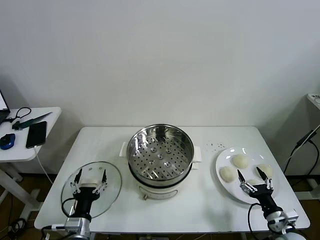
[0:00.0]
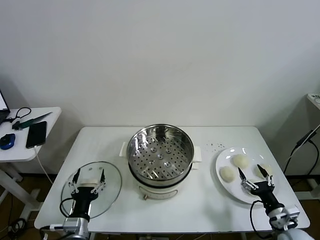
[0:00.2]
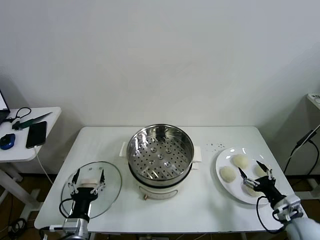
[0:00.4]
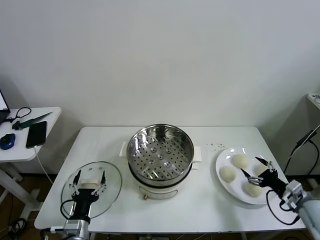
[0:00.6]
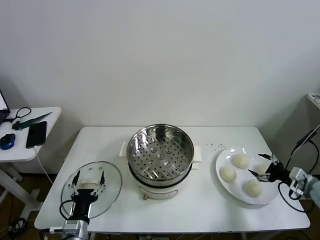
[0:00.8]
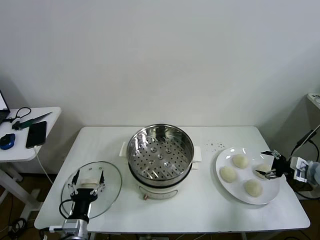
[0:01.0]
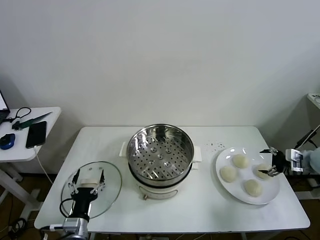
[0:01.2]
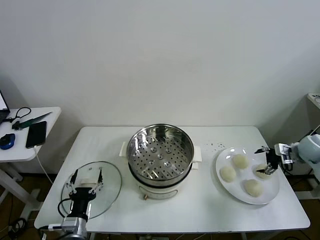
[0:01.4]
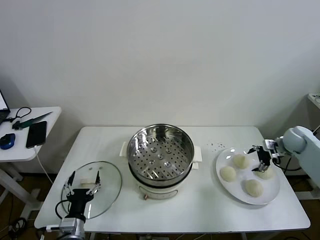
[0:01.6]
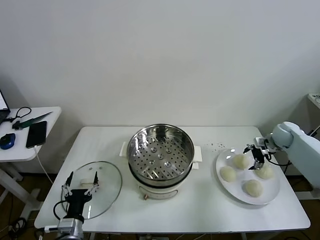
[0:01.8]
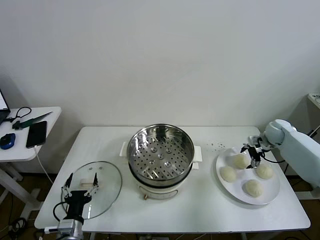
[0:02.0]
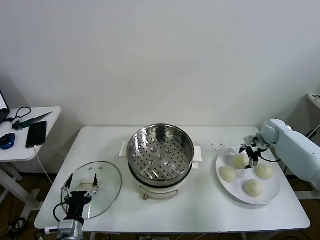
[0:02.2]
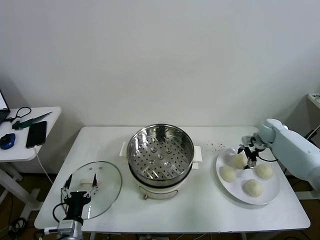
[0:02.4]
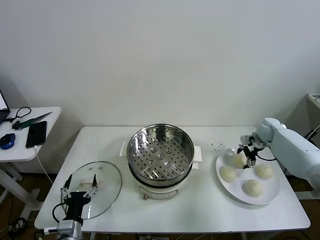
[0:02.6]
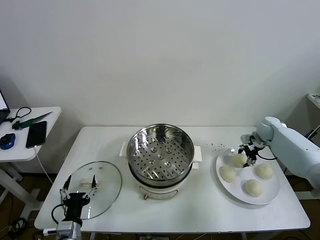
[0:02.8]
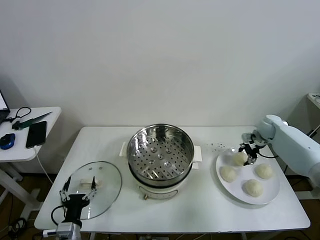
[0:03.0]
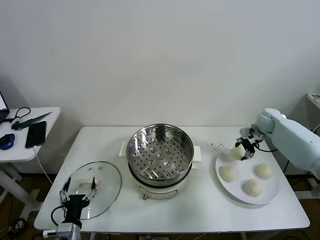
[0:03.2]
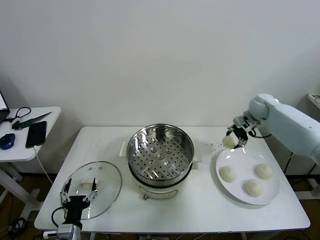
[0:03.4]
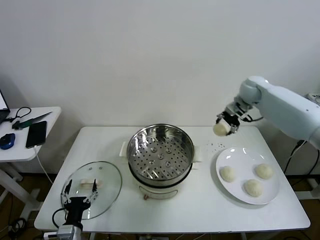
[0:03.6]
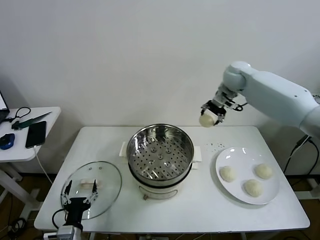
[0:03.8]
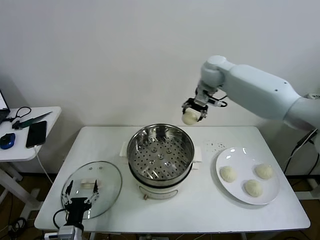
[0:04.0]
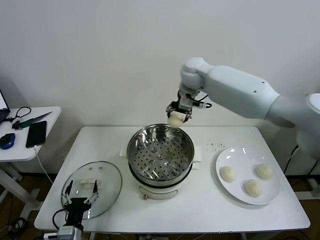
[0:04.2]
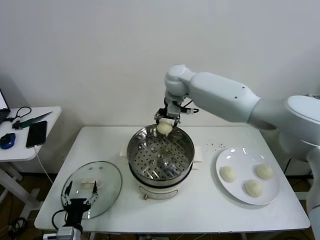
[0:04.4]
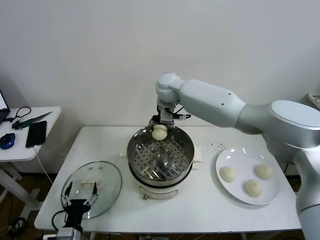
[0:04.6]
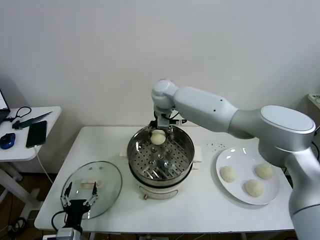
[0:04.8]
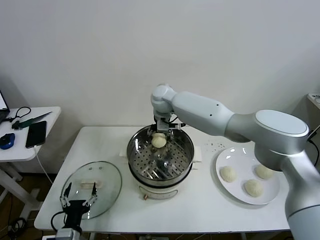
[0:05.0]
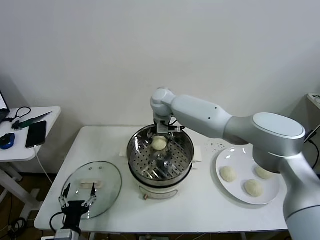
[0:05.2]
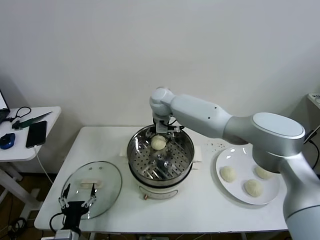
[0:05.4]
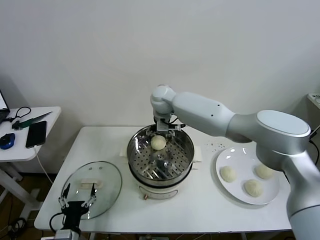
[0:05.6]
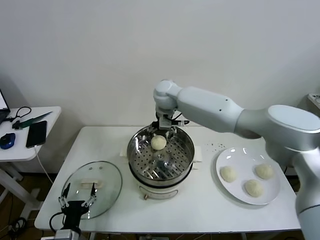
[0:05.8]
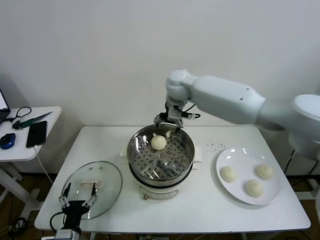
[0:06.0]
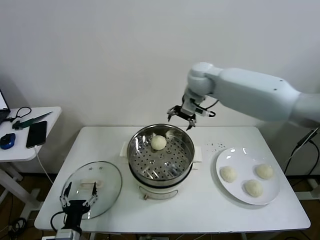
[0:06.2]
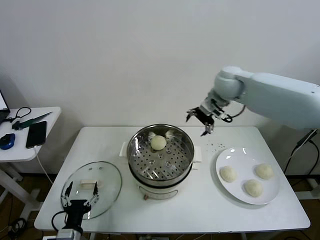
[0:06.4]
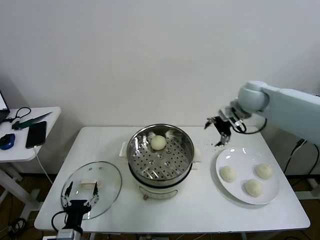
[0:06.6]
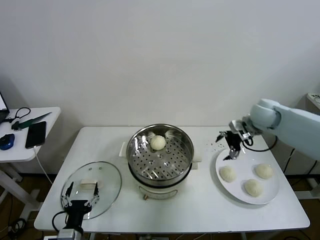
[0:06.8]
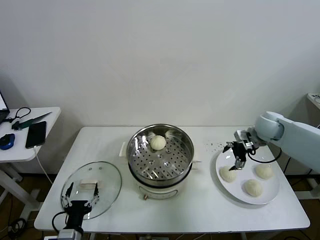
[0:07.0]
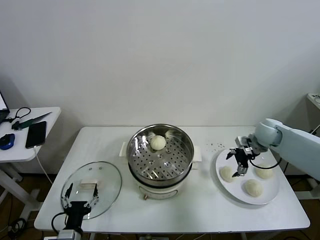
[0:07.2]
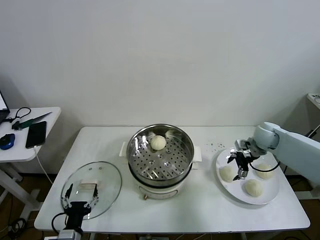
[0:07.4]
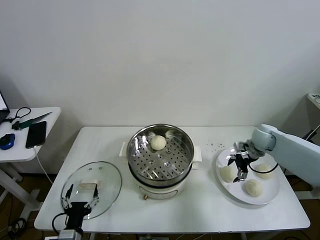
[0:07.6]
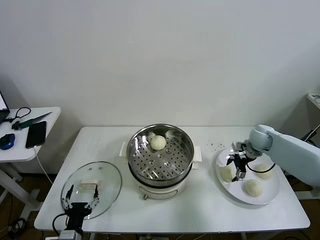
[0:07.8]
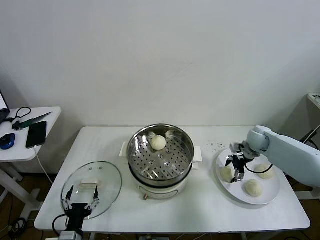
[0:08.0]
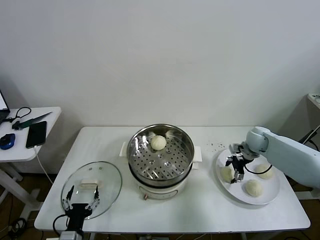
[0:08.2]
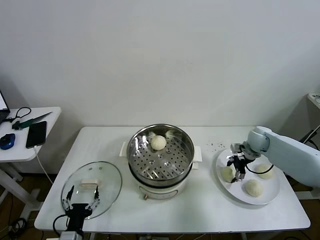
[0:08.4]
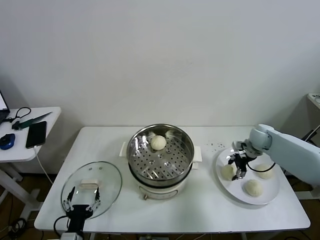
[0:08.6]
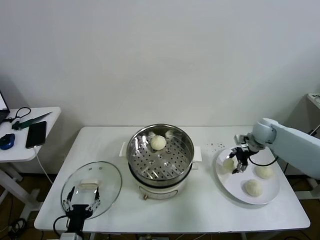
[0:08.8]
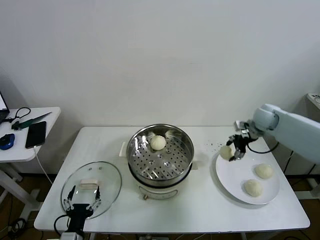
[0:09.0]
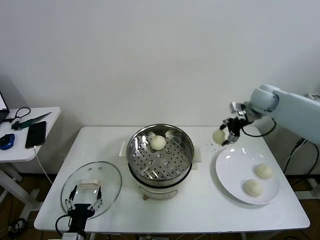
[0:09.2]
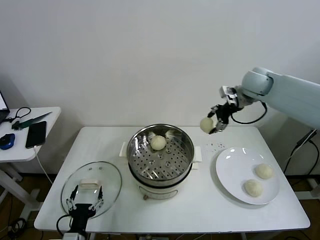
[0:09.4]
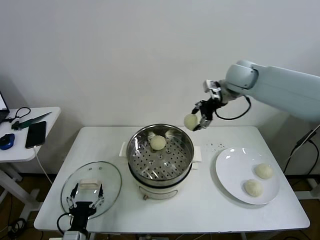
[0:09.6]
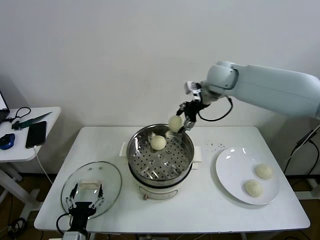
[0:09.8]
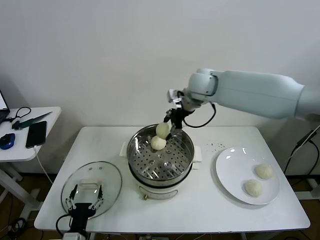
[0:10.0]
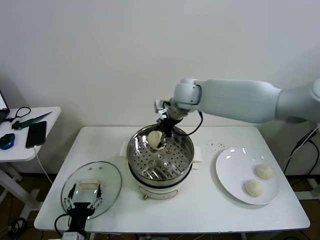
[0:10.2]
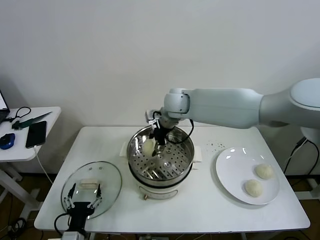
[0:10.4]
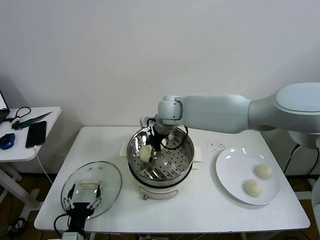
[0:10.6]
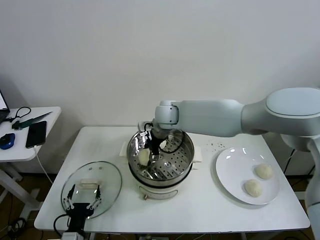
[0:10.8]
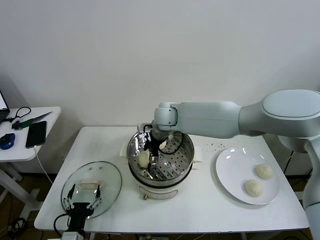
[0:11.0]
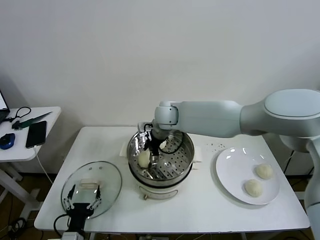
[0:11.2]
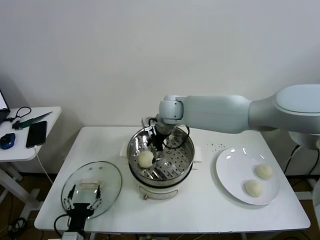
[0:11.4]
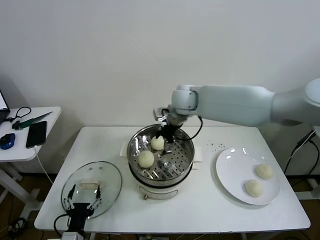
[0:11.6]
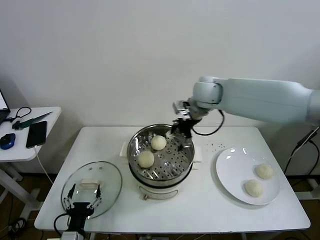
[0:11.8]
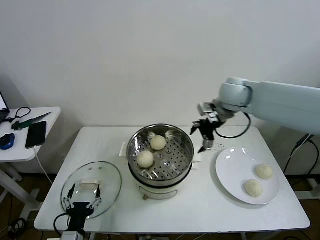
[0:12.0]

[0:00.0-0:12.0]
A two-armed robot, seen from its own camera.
Task of the whole recording: take steamed baozi put them in steamer then cover it.
Step, 0:00.0 to 0:02.8: Grasp the baozi in the plate with right gripper.
Step, 0:03.0 to 0:05.4: Place the baozi on the steamer with right gripper.
Step, 0:05.6 to 0:08.4: Grasp the baozi in the plate with right gripper.
Step, 0:08.6 to 0:11.2: Place the baozi on the steamer with right gripper.
0:01.6 to 0:03.0: The right gripper heads forward and to the left, covering about 10 cm, and closes its fingers.
0:03.0 to 0:04.4: The right gripper travels to the left and upward by some 40 cm.
0:04.4 to 0:06.0: The right gripper moves to the right, about 5 cm, travels downward and back again, about 5 cm each way, and opens.
0:06.0 to 0:07.6: The right gripper heads to the right and downward, covering roughly 35 cm.
0:07.6 to 0:09.0: The right gripper moves upward, about 10 cm, and closes.
0:09.0 to 0:10.4: The right gripper heads to the left, covering approximately 35 cm.
0:10.4 to 0:12.0: The right gripper travels to the right by approximately 20 cm, and opens its fingers.

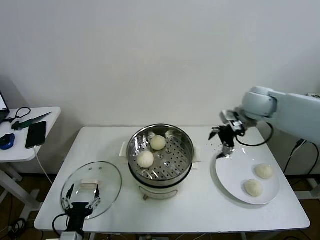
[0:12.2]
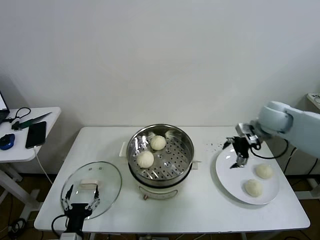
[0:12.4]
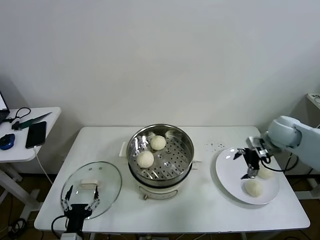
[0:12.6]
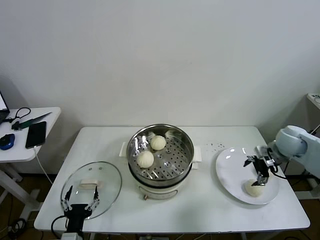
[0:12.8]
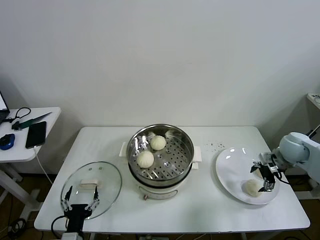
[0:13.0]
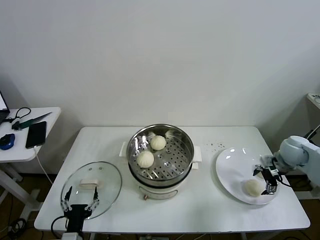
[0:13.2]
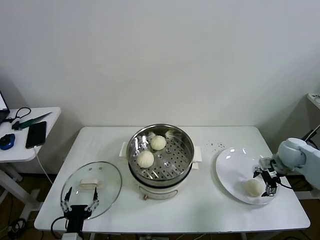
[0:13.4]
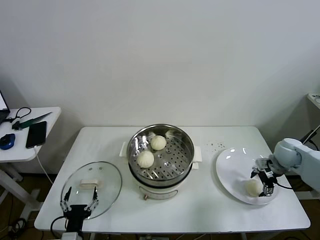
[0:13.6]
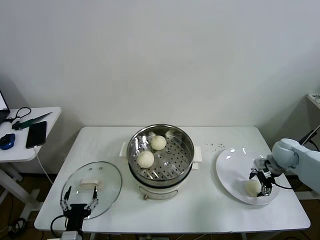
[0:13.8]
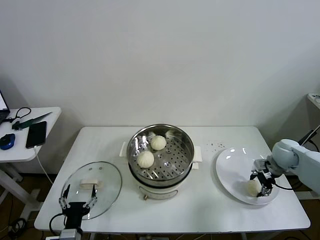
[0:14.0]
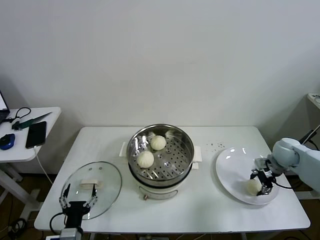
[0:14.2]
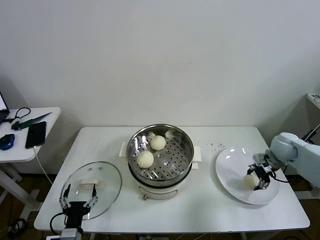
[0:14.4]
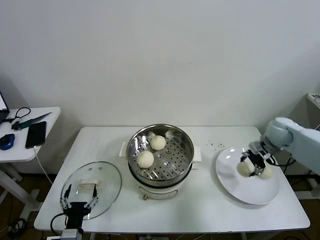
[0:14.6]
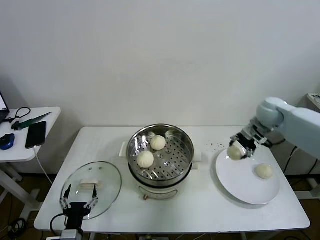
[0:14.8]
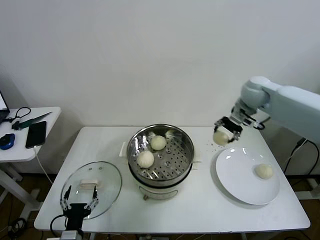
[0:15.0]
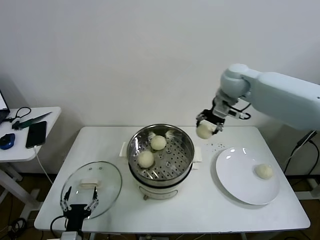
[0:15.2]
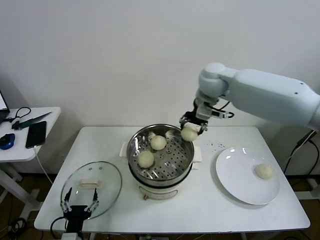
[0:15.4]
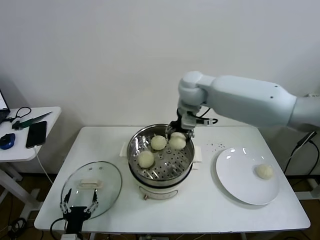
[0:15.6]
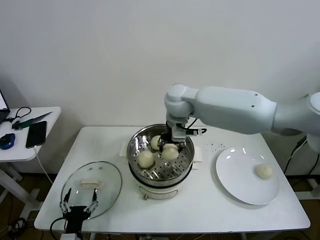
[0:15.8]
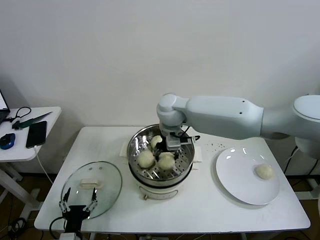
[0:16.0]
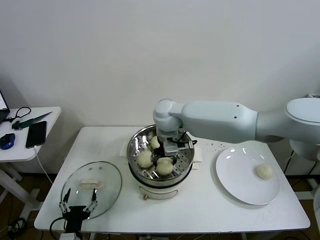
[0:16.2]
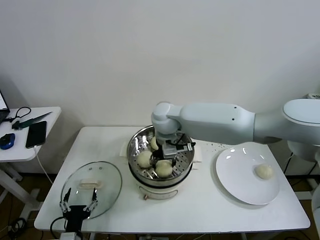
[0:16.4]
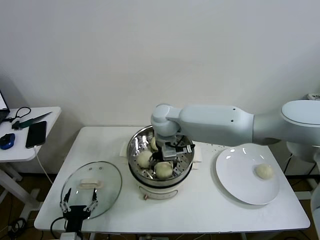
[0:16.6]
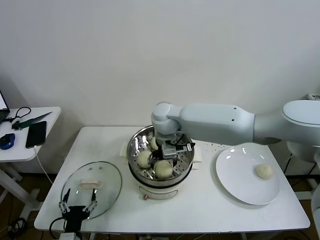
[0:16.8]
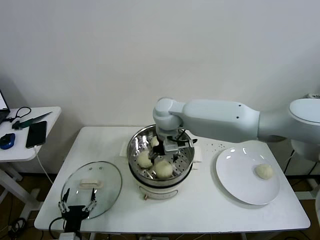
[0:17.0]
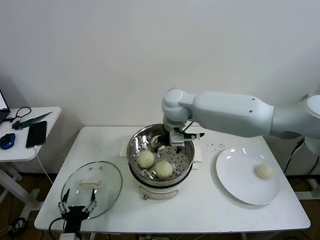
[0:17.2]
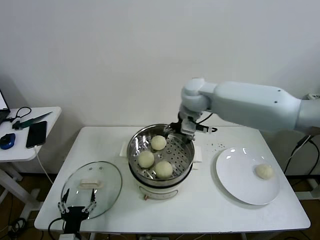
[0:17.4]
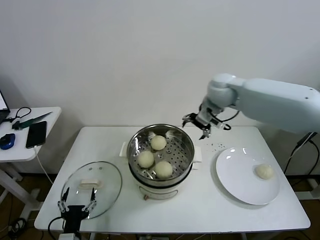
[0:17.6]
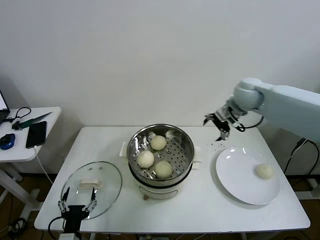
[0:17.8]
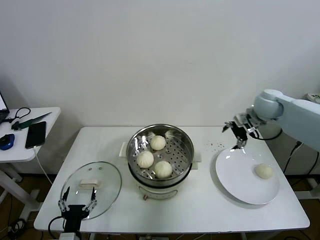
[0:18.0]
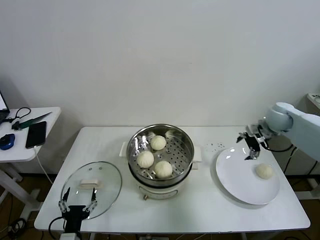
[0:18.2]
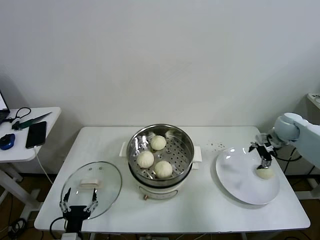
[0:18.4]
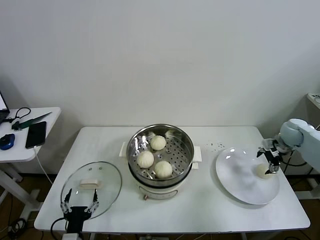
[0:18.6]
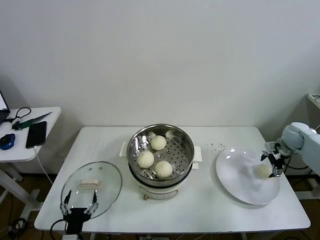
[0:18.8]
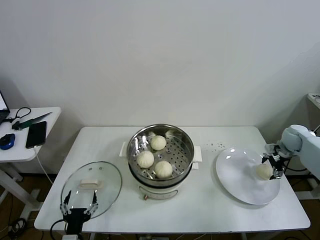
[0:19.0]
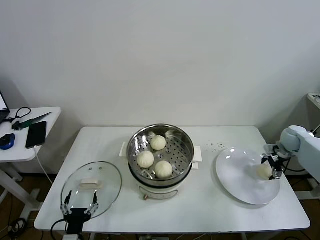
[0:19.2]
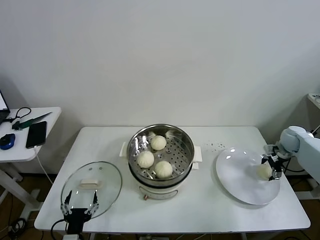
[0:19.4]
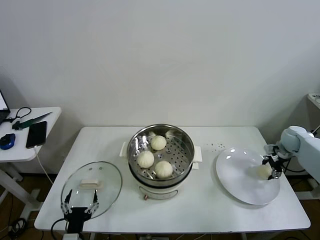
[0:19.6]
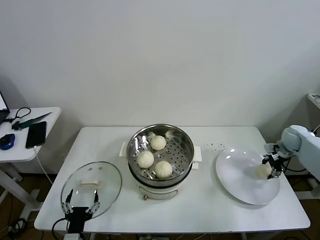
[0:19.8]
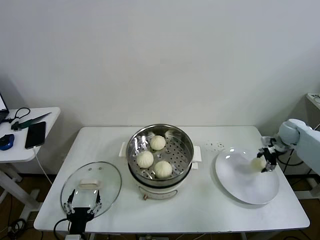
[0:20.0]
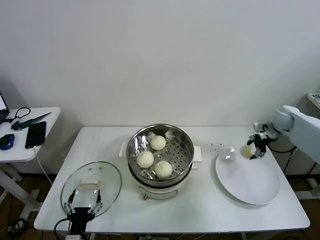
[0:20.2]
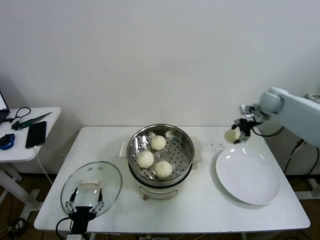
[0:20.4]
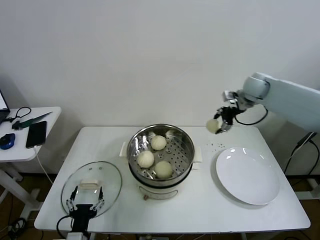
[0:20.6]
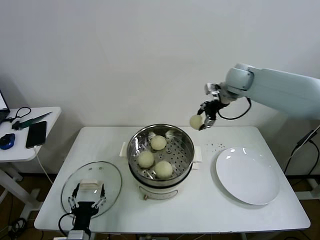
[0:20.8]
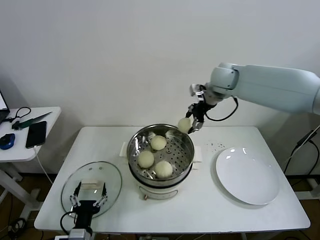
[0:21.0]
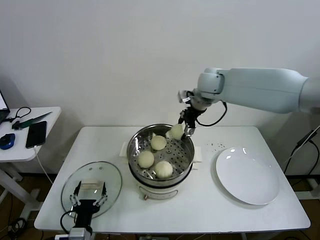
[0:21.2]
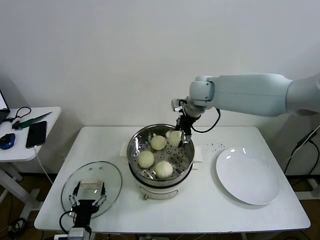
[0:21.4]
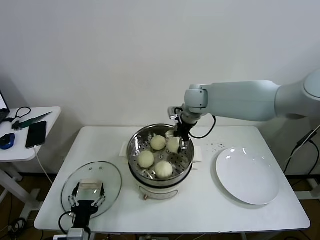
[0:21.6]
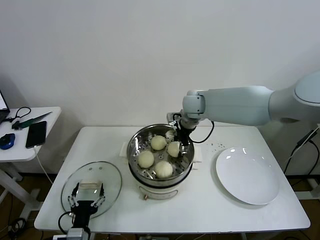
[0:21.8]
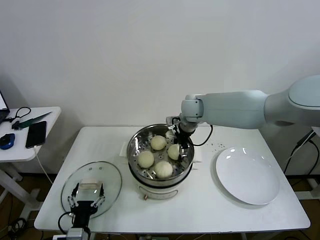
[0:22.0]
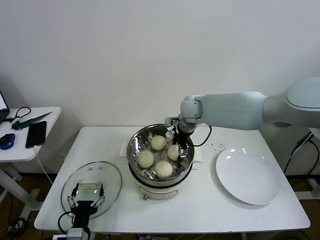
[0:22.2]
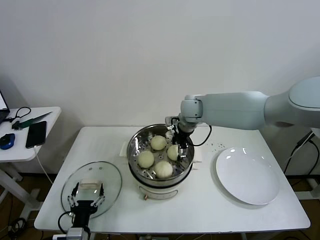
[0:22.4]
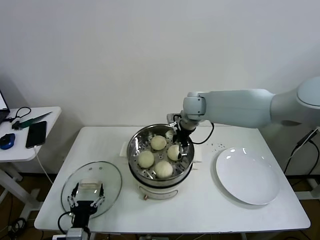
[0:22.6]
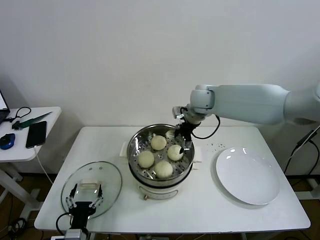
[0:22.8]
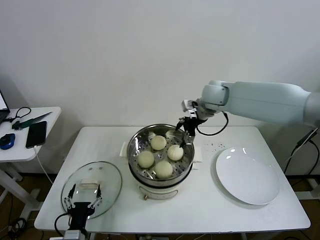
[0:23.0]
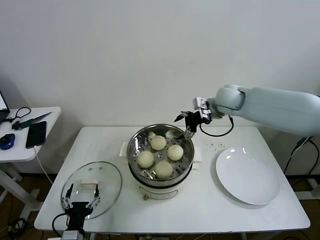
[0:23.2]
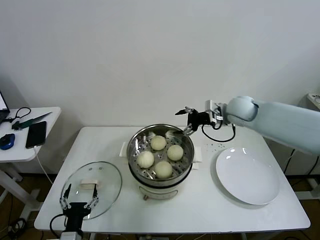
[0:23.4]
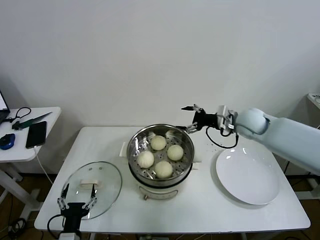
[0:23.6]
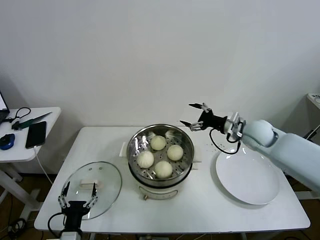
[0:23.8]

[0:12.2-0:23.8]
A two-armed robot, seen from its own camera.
Task of the whole recording: take steamed baozi put them in steamer then cover it.
Step, 0:12.2 to 0:14.0: Grasp the baozi in the plate with right gripper.
Step, 0:14.2 to 0:16.6: Place the baozi on the steamer with right gripper.
Step, 0:17.0 to 0:19.6: Grasp the baozi in the plate with right gripper.
Step, 0:19.8 to 0:22.6: Place the baozi on the steamer with right gripper.
0:12.2 to 0:13.6: The right gripper shifts about 20 cm downward and to the right.
0:13.6 to 0:15.0: The right gripper moves upward, to the left and forward, approximately 30 cm, and closes its fingers.
0:15.0 to 0:16.6: The right gripper shifts some 25 cm to the left, and opens.
0:16.6 to 0:18.0: The right gripper is displaced to the right by some 35 cm.
0:18.0 to 0:19.4: The right gripper goes roughly 20 cm downward and to the right.
0:19.4 to 0:21.0: The right gripper goes approximately 40 cm to the left and upward, and closes.
0:21.0 to 0:22.4: The right gripper travels downward and to the left by roughly 15 cm, and opens.
0:22.4 to 0:23.8: The right gripper goes some 20 cm to the right and backward.
